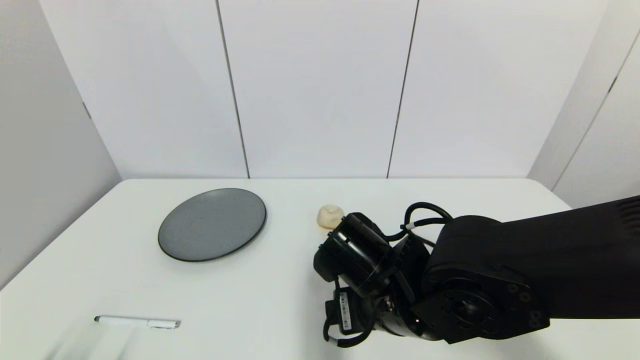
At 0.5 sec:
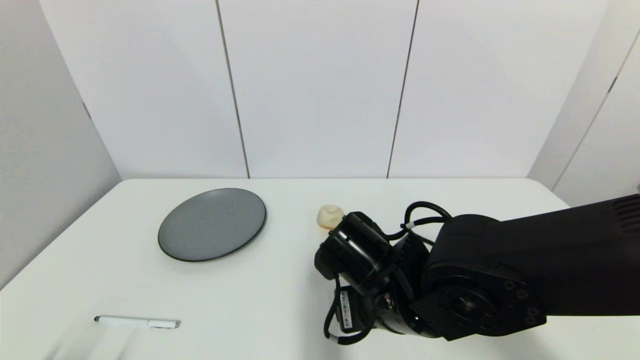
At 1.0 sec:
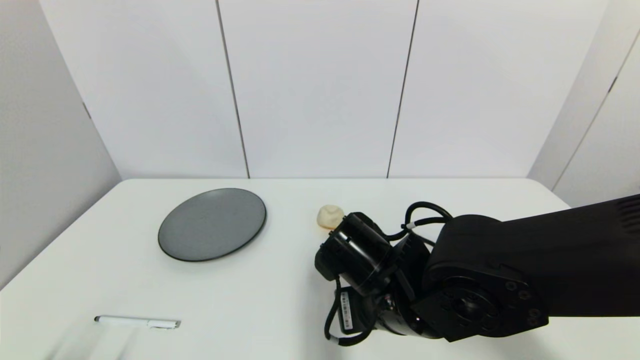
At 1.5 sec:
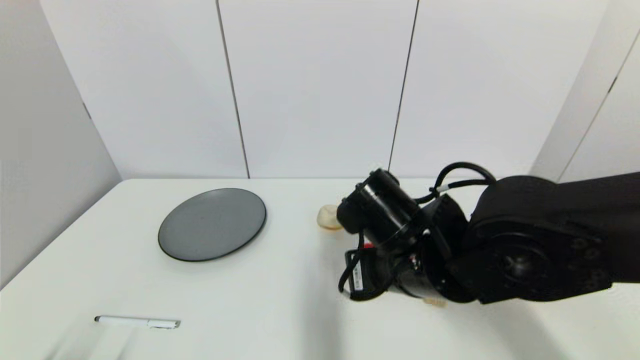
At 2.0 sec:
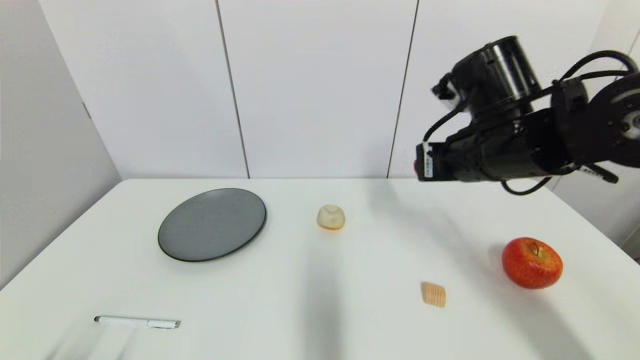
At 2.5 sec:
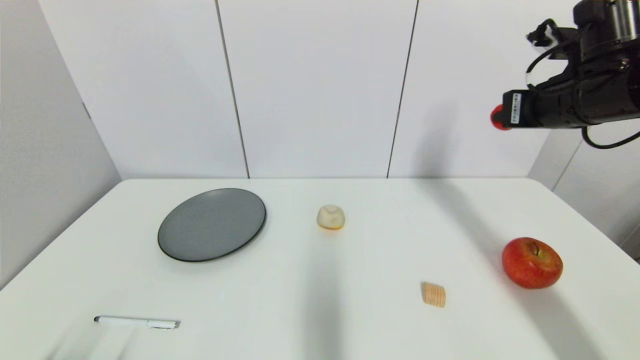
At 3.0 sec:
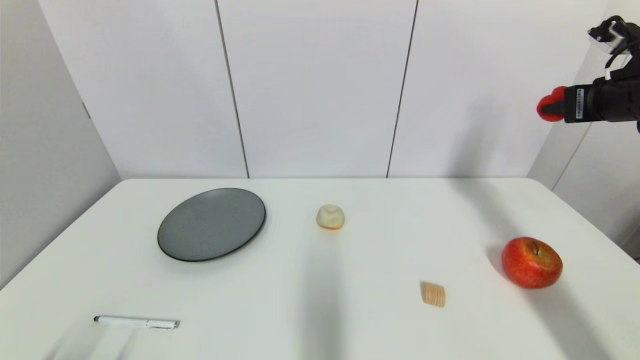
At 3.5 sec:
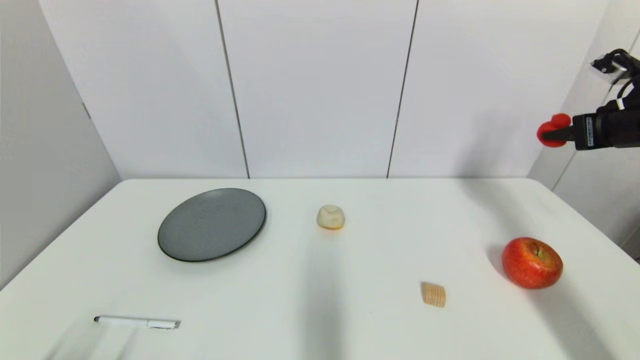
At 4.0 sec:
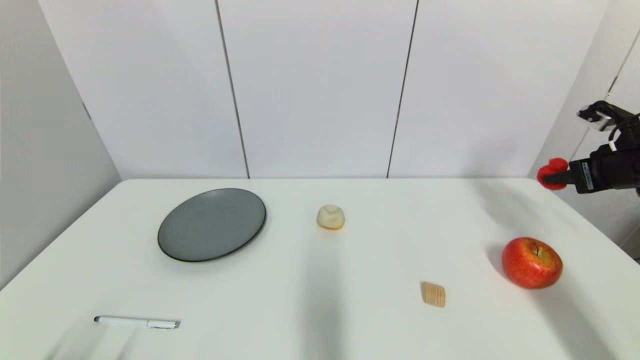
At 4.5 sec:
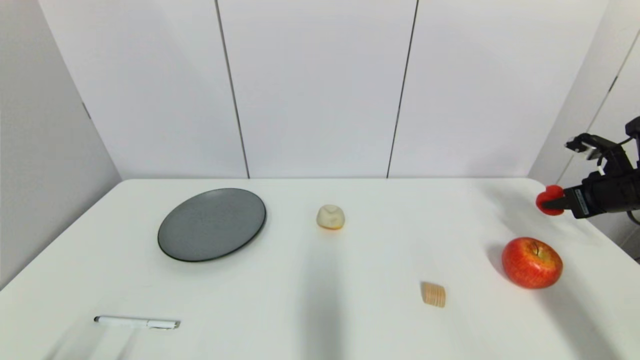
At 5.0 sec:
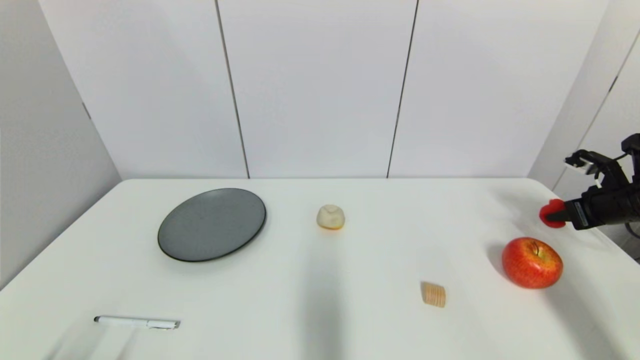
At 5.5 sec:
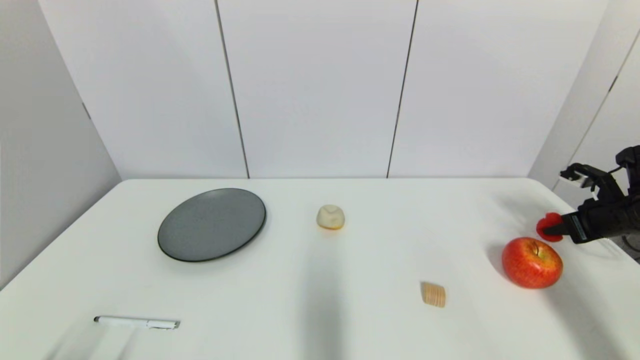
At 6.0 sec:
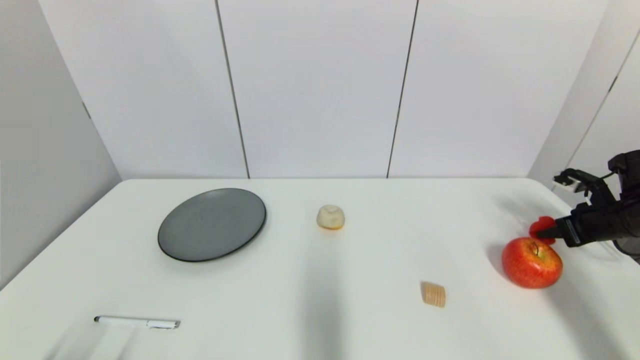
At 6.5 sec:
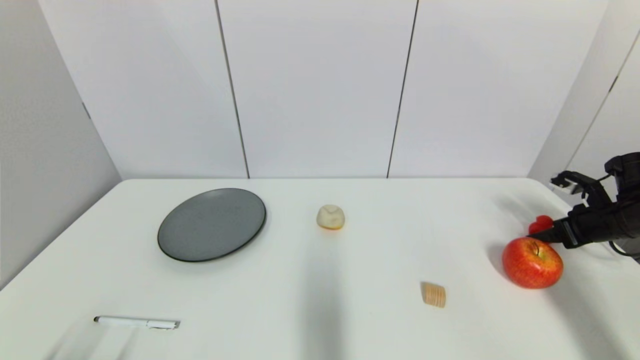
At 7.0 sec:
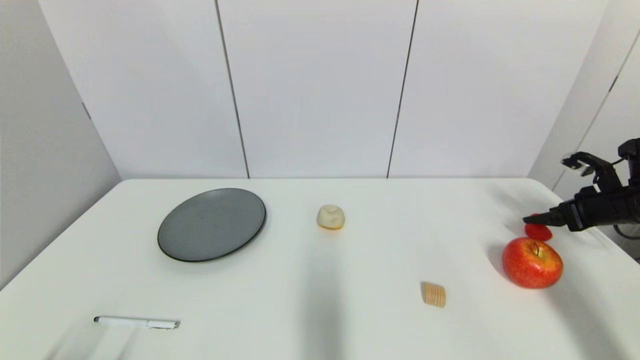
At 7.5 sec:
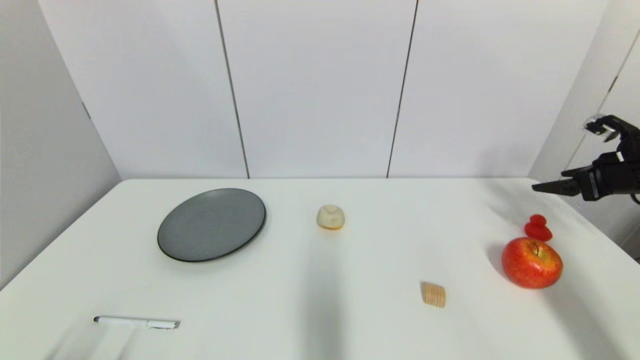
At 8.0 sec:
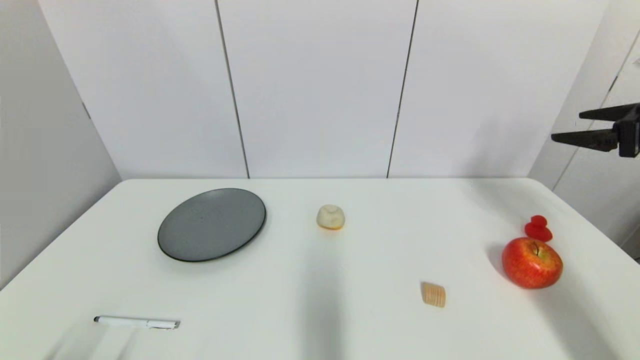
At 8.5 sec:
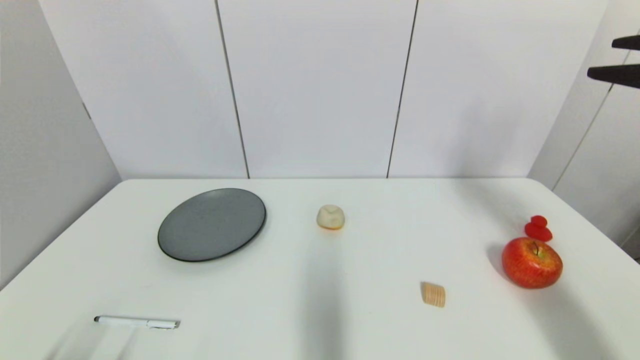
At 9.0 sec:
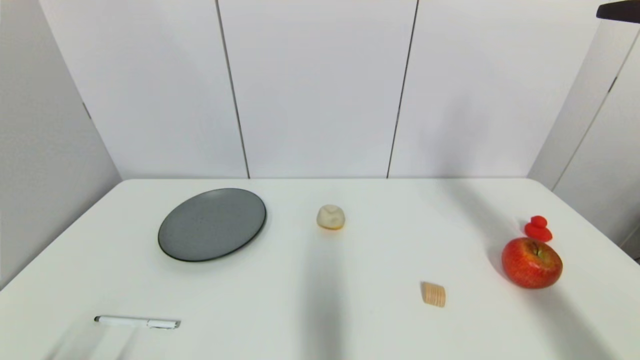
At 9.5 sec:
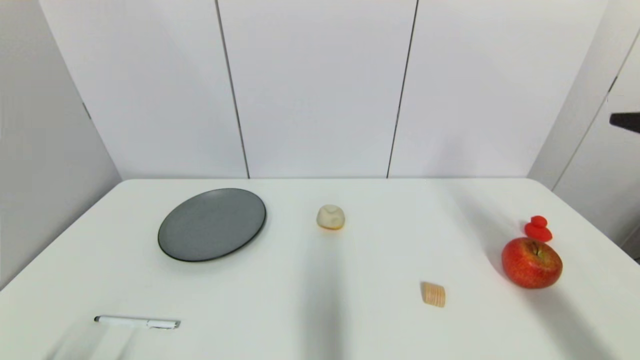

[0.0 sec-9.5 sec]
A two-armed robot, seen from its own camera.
Step, 2.0 sec to 6.5 sec: Place the red duck on the table with right gripper.
0.0 sec to 2.0 sec: The right gripper heads upward, to the right and forward, covering about 20 cm, and closes.
2.0 sec to 4.0 sec: The right gripper goes about 25 cm to the right.
4.0 sec to 5.5 sec: The right gripper goes some 10 cm downward.
5.5 sec to 7.5 sec: The right gripper heads upward, covering roughly 5 cm, and opens up.
7.5 sec to 9.5 sec: The right gripper is displaced backward, to the left and upward by about 25 cm.

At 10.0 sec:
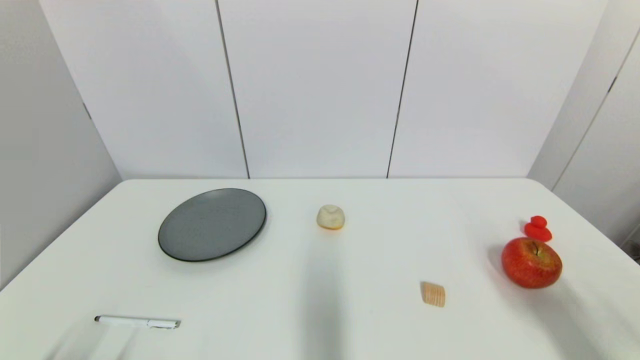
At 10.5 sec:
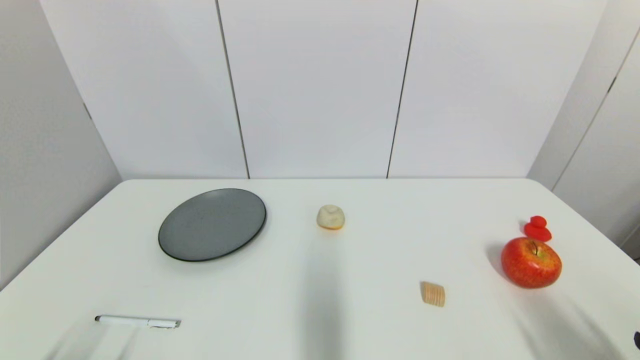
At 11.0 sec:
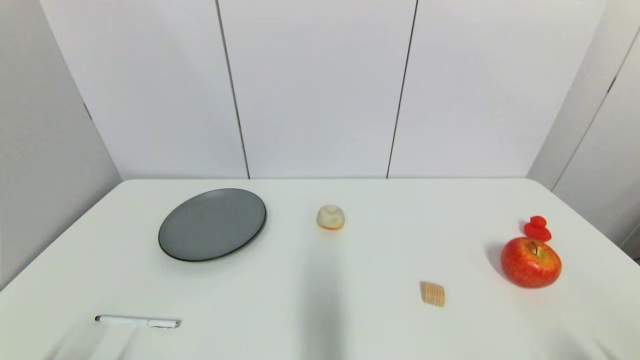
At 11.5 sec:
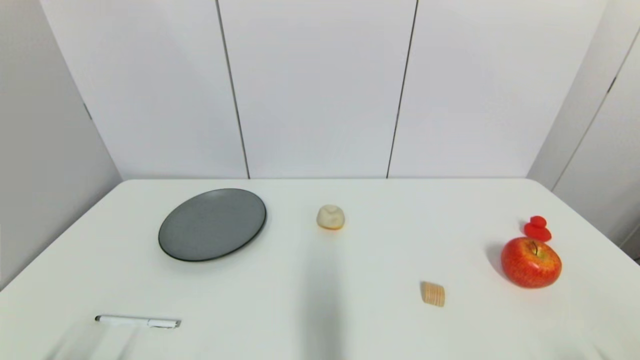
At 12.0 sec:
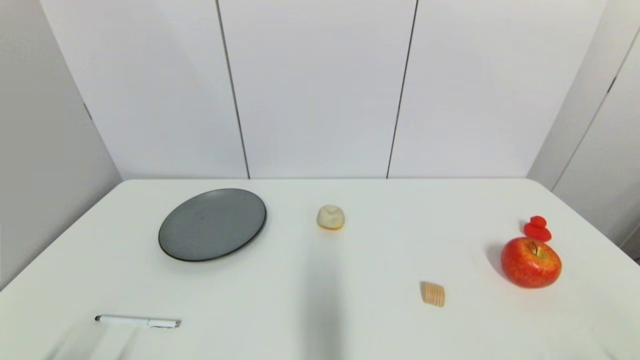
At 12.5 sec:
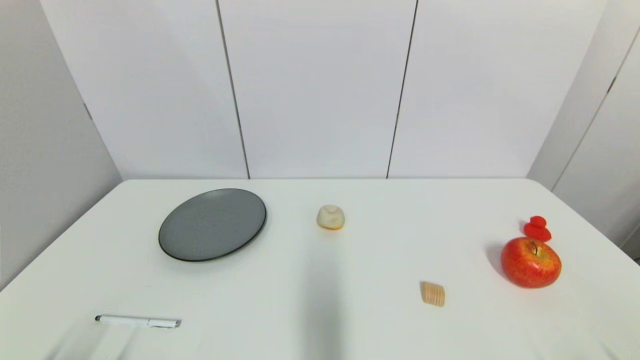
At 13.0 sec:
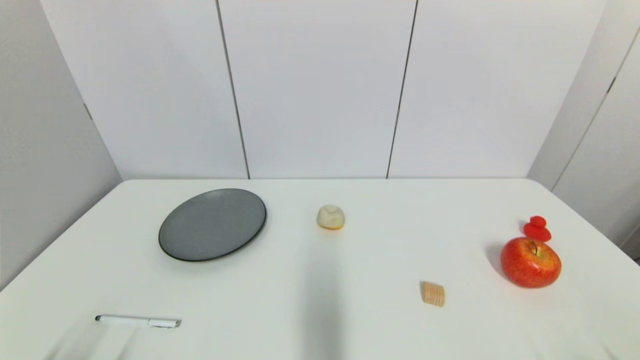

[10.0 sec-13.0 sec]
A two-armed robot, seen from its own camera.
10.0 sec to 11.5 sec: The right gripper is displaced downward and backward by roughly 15 cm.
